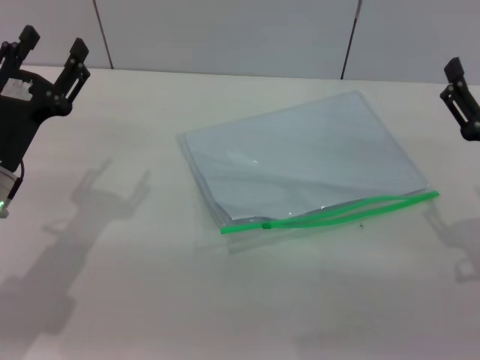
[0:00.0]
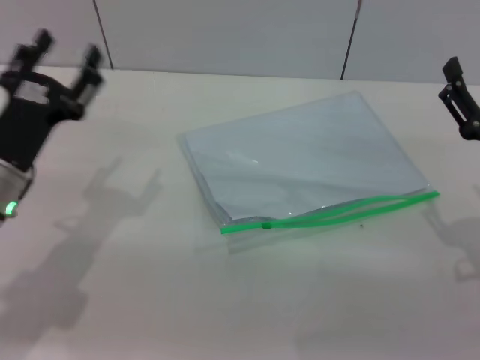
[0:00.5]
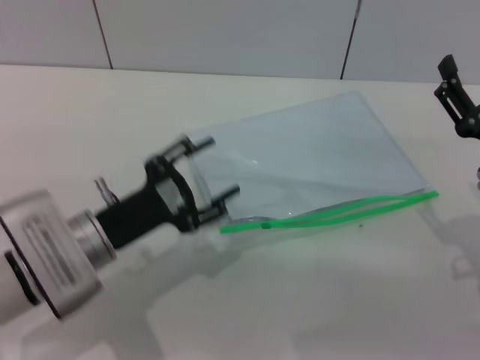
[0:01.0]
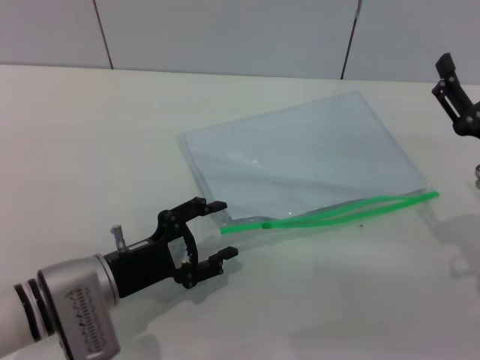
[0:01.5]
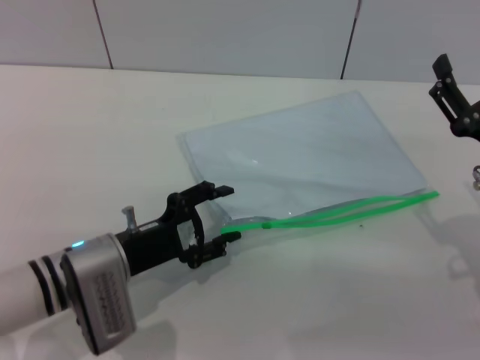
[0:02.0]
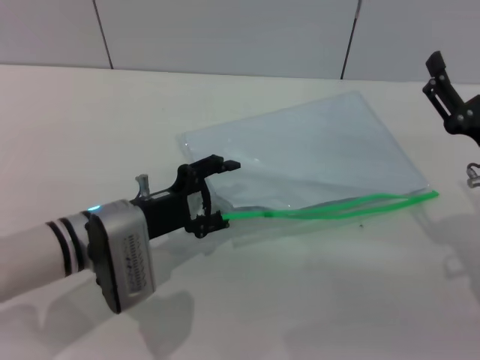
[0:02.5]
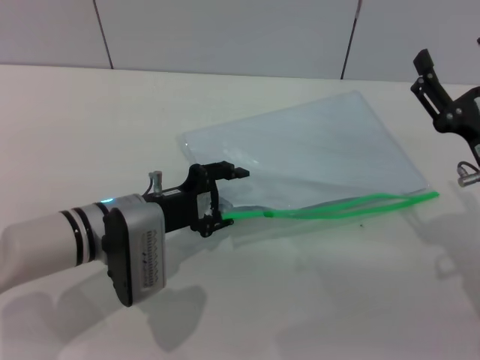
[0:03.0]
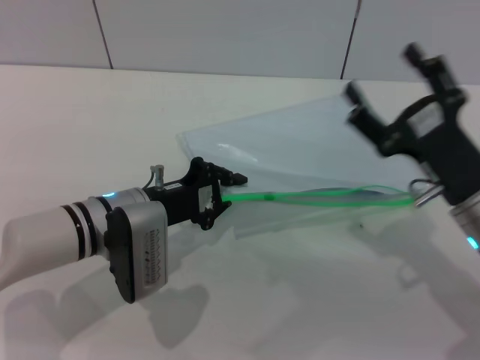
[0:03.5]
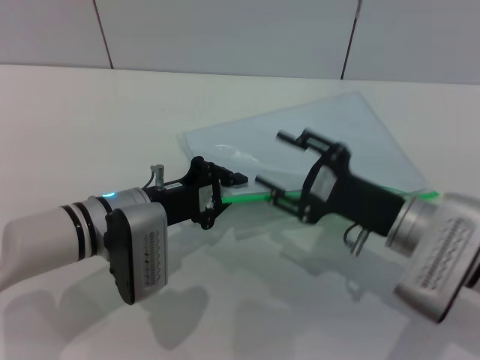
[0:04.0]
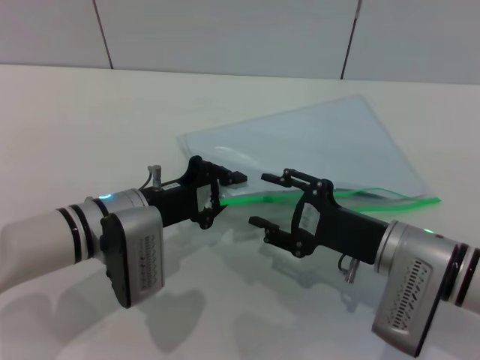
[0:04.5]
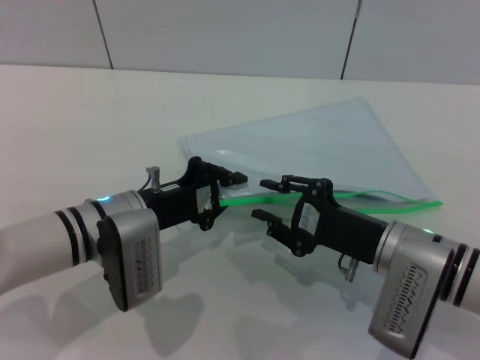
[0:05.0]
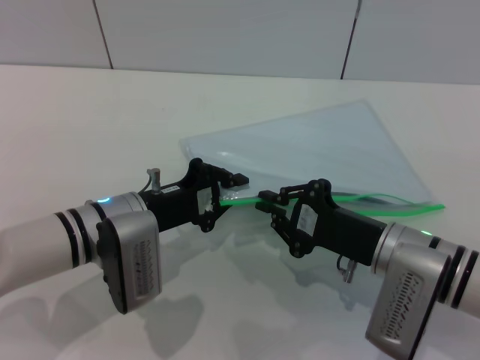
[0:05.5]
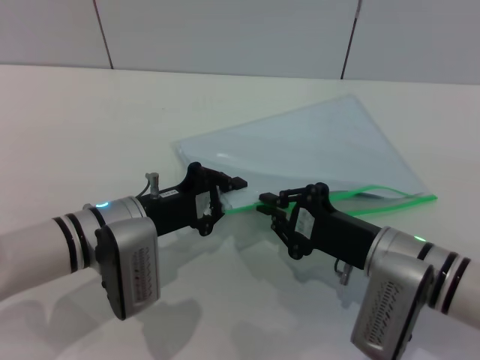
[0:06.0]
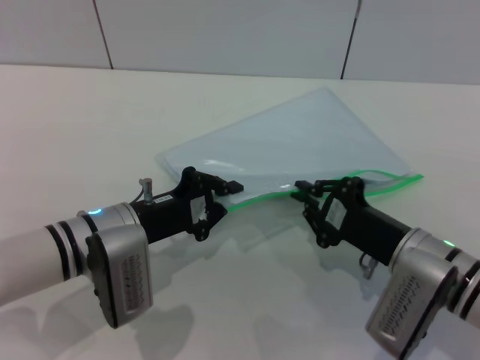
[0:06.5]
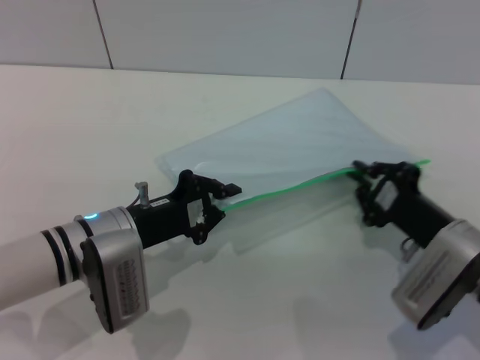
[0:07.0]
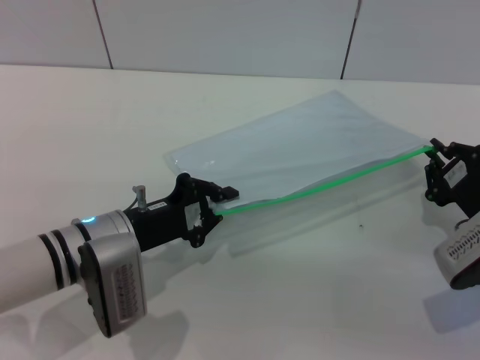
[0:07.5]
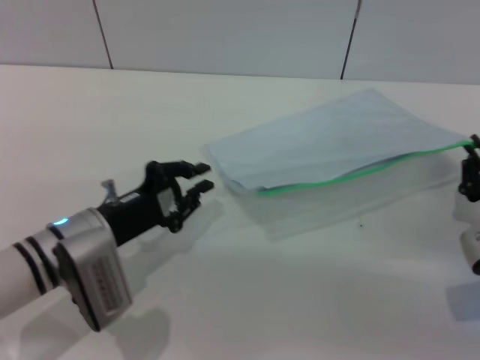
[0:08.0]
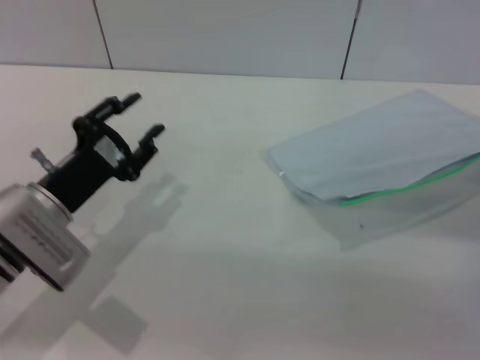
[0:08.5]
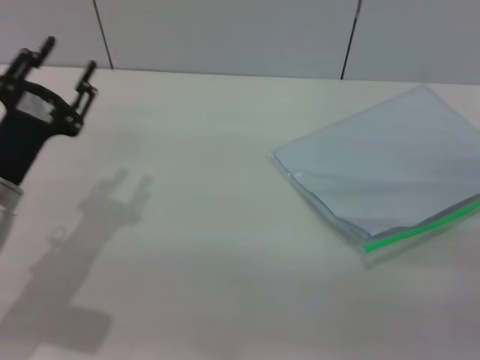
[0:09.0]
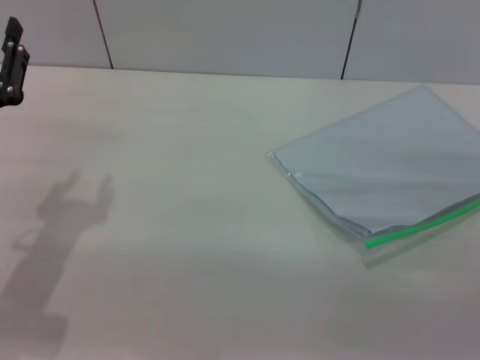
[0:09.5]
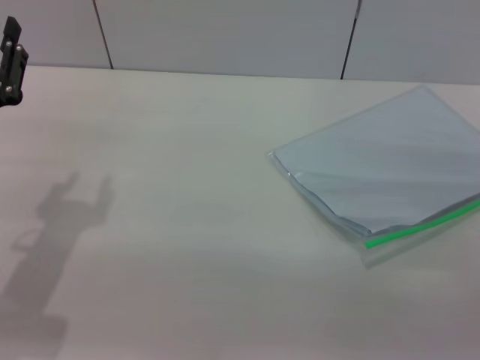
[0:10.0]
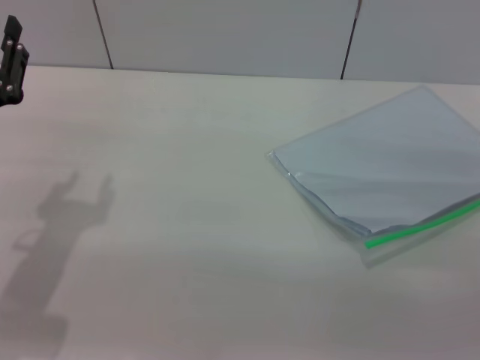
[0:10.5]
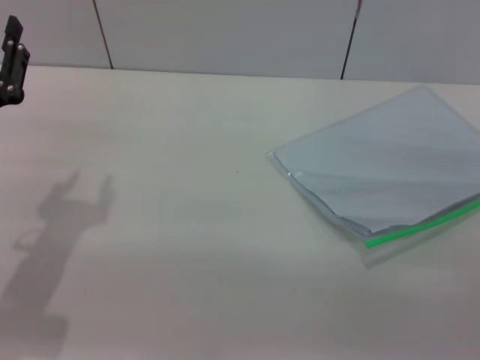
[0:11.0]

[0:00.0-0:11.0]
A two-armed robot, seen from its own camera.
Step, 0:00.0 to 0:03.5: Pick up the transparent plastic bag with the left gripper.
Step, 0:04.0 to 0:07.5: Pulling up the zipper on the transparent plastic bag with the right gripper to close it.
Step, 0:08.0 to 0:09.0: Place the transparent plastic bag.
0:00.0 to 0:02.0: The left gripper goes approximately 10 cm to the right and downward.
0:02.0 to 0:03.5: The left gripper goes about 5 cm forward, and closes.
0:03.5 to 0:05.5: The right gripper shifts roughly 5 cm to the left, and closes its fingers.
0:05.5 to 0:07.5: The right gripper heads to the right, covering some 10 cm.
0:07.5 to 0:09.0: The left gripper shifts roughly 5 cm to the left, and opens its fingers, while the right gripper is displaced backward by some 5 cm, and opens its fingers.

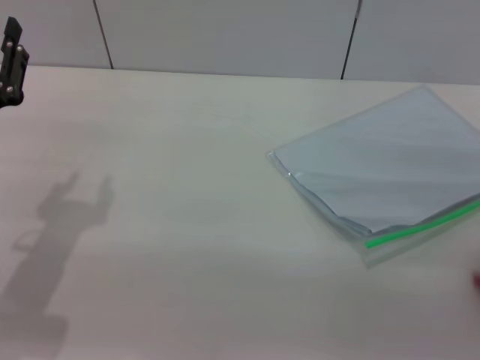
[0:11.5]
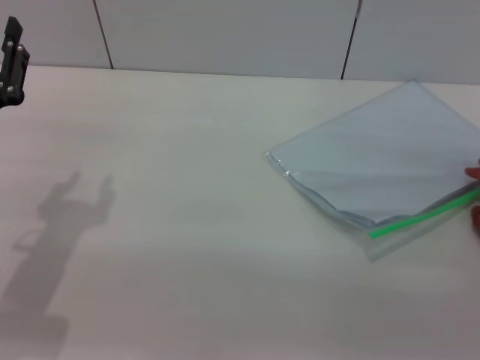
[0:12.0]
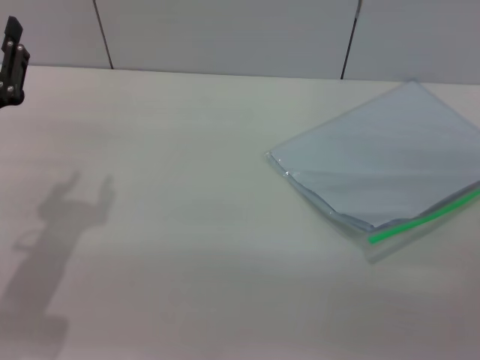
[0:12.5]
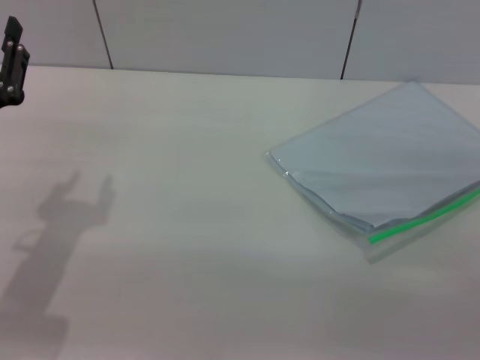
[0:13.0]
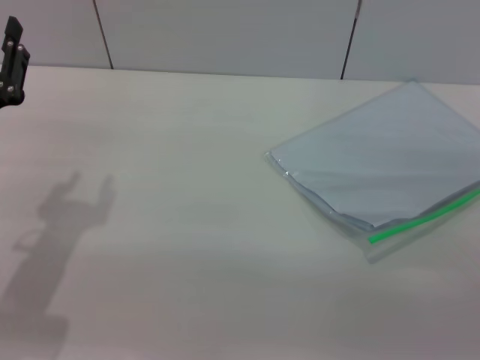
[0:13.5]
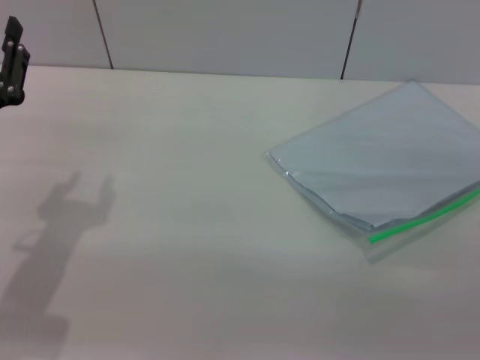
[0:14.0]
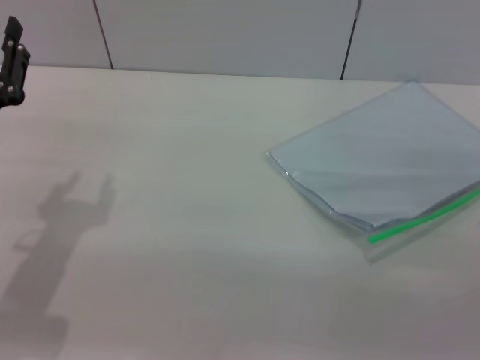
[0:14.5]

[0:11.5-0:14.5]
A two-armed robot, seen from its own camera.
0:11.5 to 0:14.5: The two grippers keep their place.
